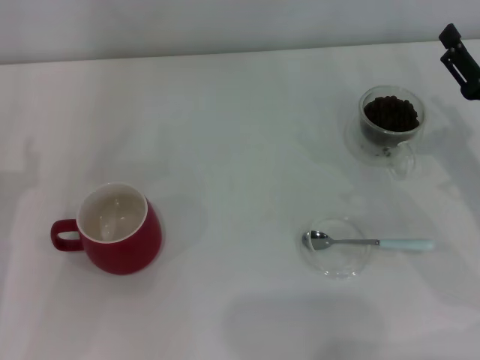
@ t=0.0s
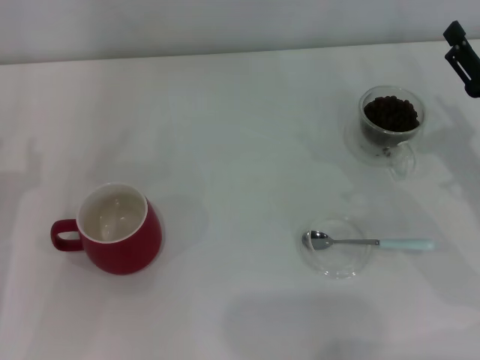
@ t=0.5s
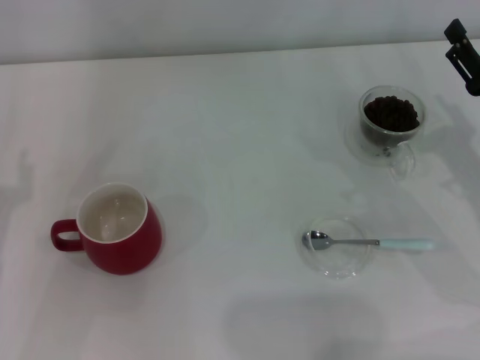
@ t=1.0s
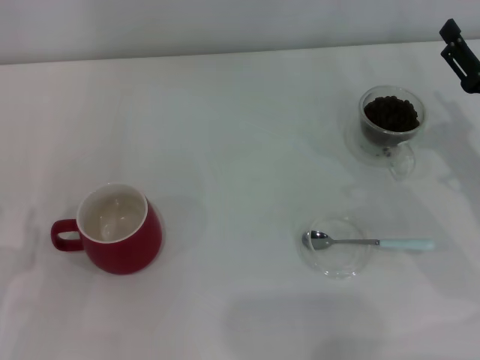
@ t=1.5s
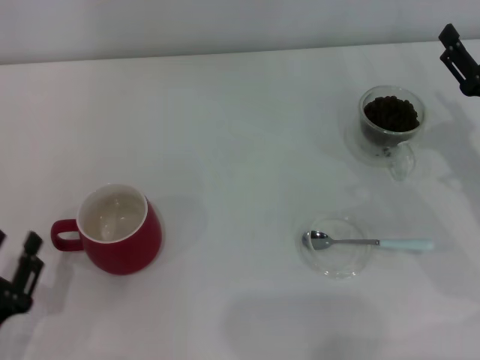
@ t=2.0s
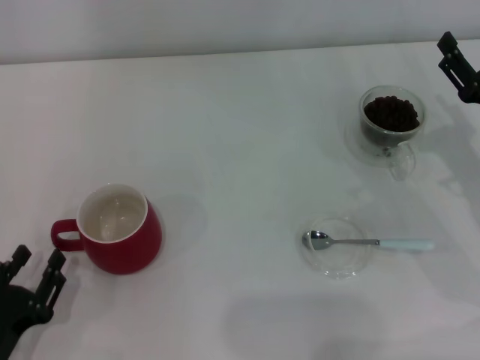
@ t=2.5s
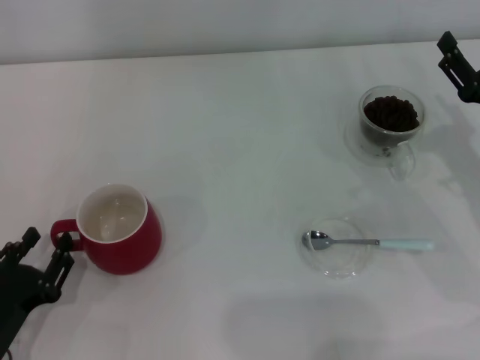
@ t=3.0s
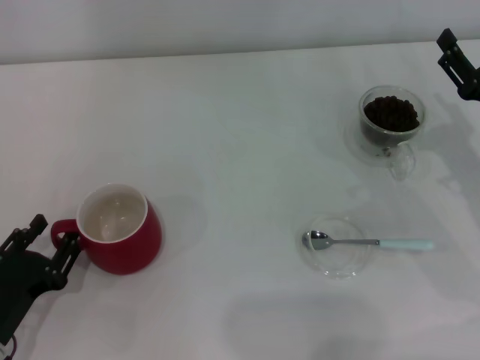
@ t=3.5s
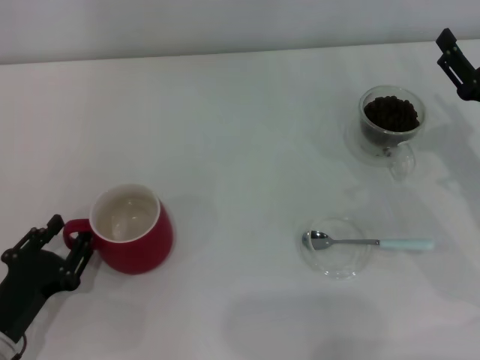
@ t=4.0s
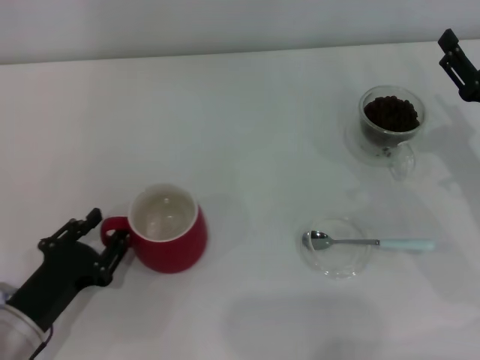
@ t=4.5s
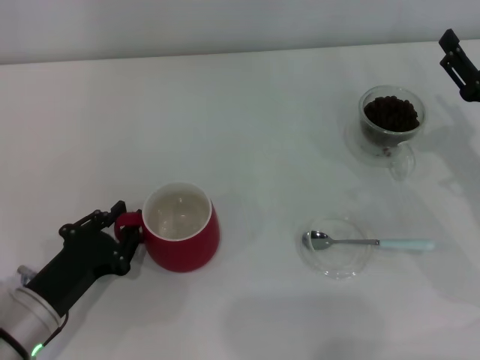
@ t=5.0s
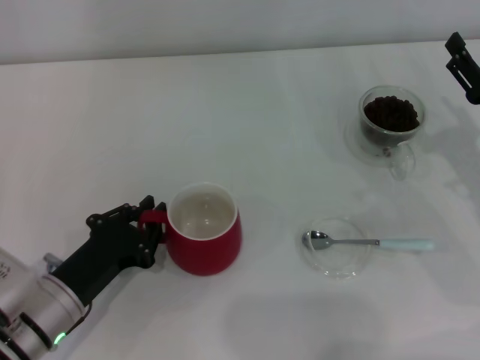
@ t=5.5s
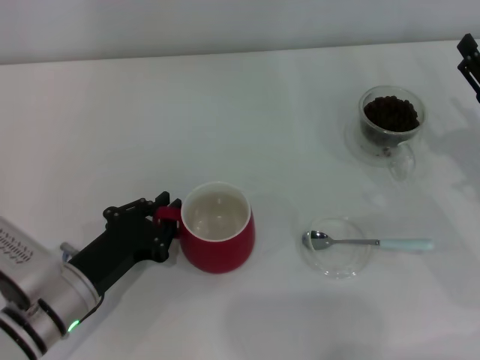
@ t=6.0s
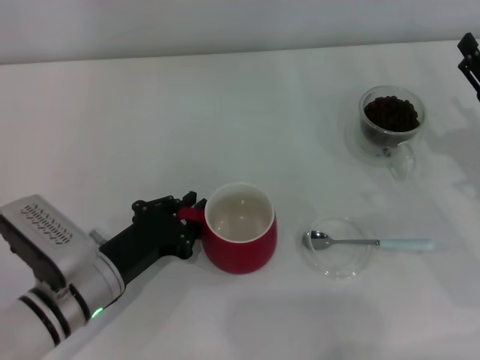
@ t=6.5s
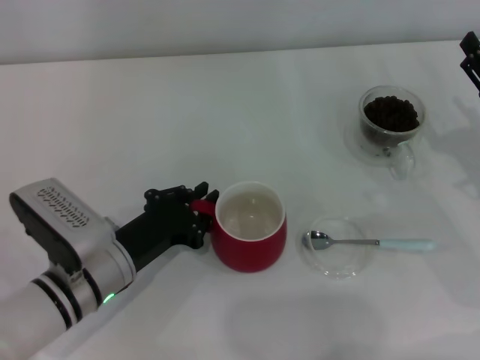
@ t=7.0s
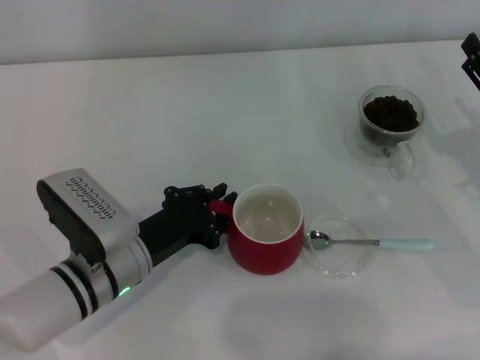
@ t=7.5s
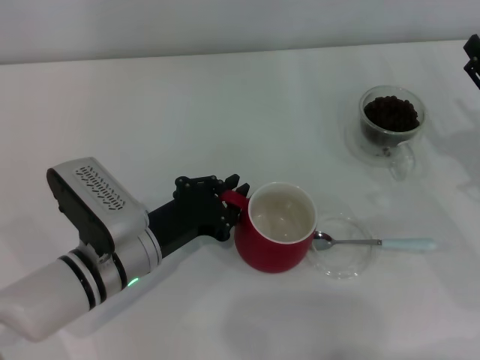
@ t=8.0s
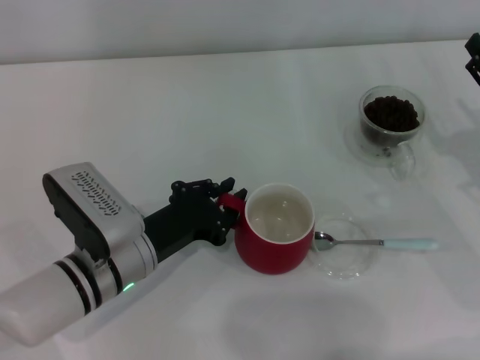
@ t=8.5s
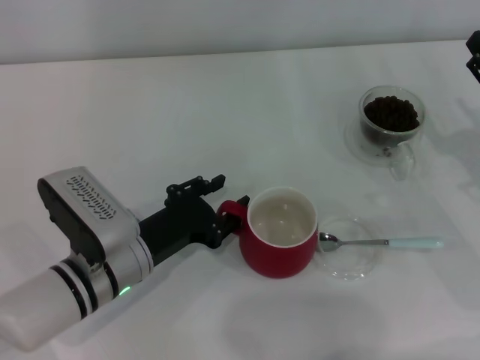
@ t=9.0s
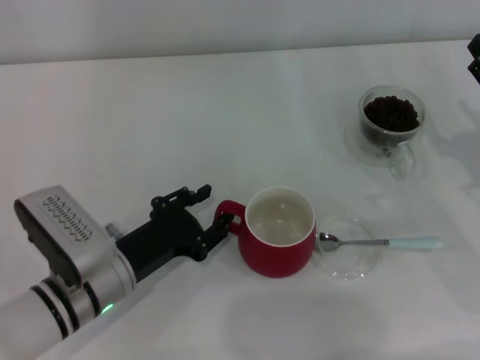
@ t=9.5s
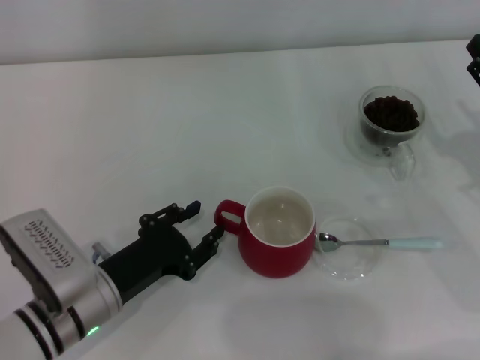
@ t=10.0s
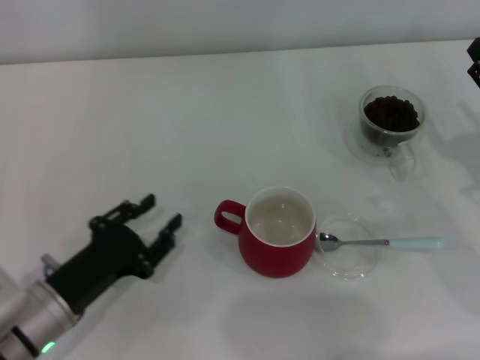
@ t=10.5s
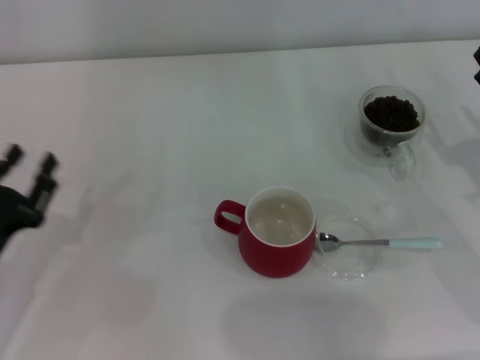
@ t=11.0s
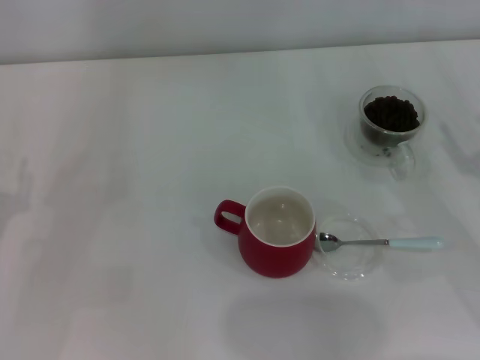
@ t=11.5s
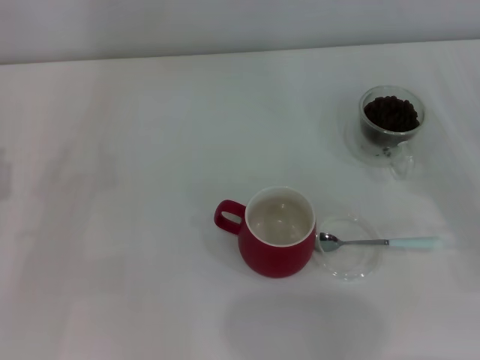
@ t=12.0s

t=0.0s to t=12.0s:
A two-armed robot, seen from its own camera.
Task of the whole recording: Use a blue spoon to take out the coffee beans from the glass and pour them into the red cup.
Step, t=0.0s to t=10.0s: Move the cup to the center of view with the left gripper.
t=0.0s to t=2.0s: The left gripper travels backward and downward by about 15 cm.
t=2.0s to t=4.0s: The left gripper ends up some 5 cm from where it was.
t=4.0s to t=6.0s: The left gripper heads to the right and forward, covering some 10 cm, and closes its fingers.
t=6.0s to t=8.0s: The left gripper travels to the right by roughly 5 cm.
t=8.0s to t=10.0s: The left gripper ends up about 5 cm from where it was, and opens up.
t=10.0s to t=12.0s: The left gripper shifts roughly 15 cm to the left. Meanwhile the right gripper heads backward, covering some 5 cm.

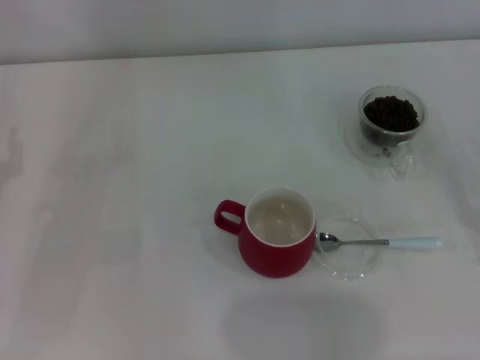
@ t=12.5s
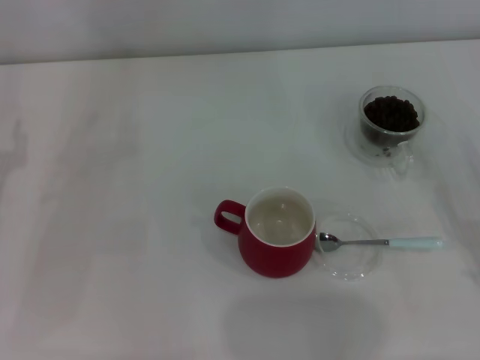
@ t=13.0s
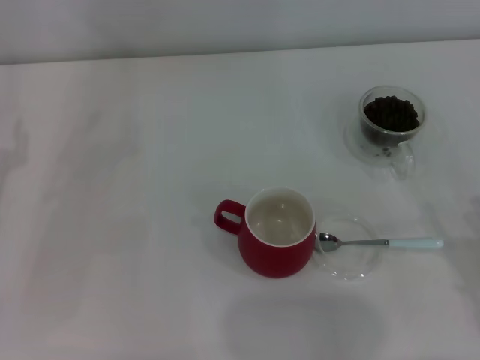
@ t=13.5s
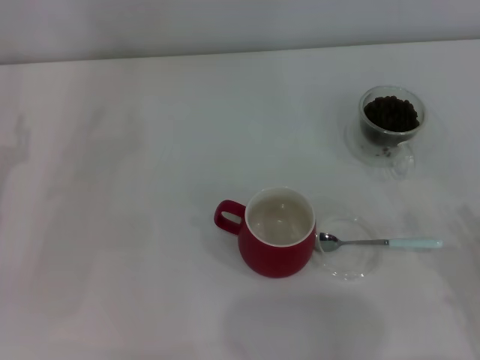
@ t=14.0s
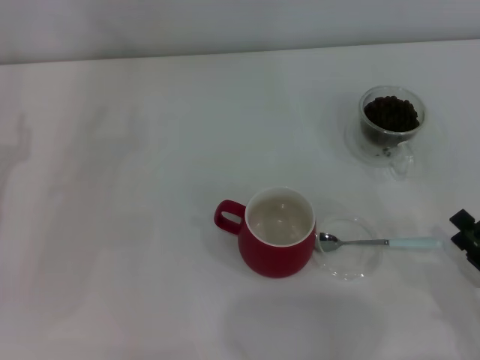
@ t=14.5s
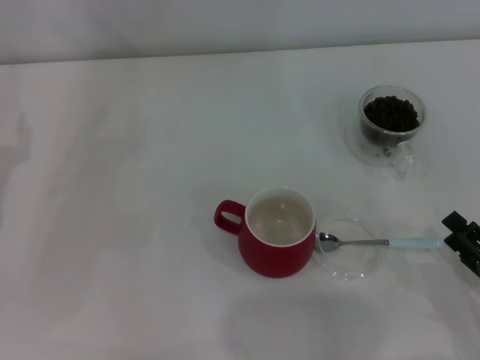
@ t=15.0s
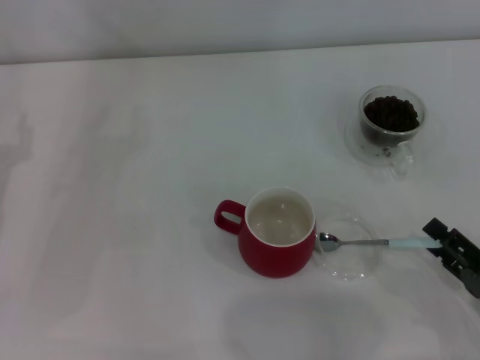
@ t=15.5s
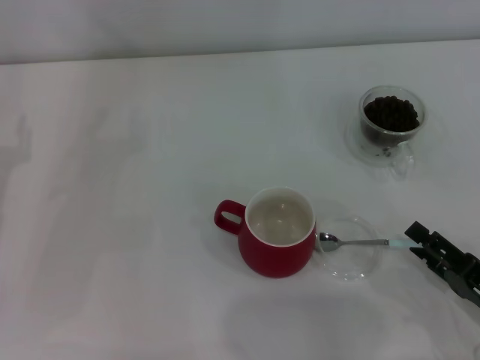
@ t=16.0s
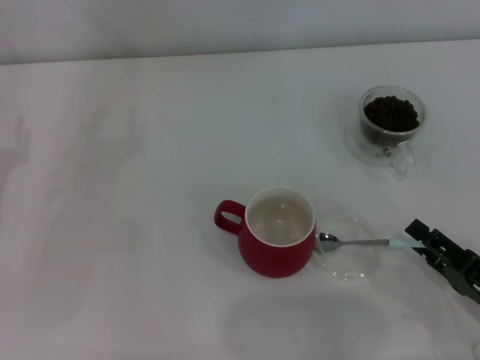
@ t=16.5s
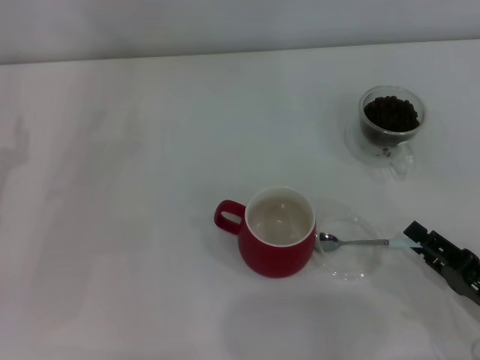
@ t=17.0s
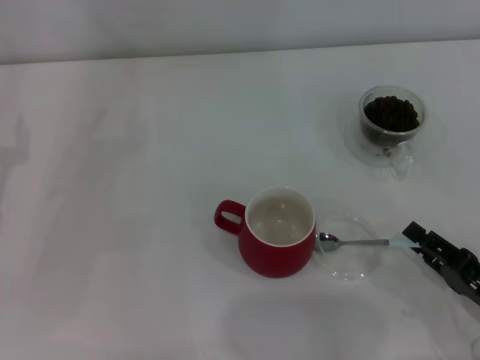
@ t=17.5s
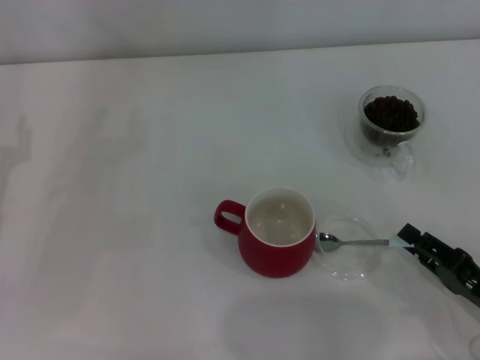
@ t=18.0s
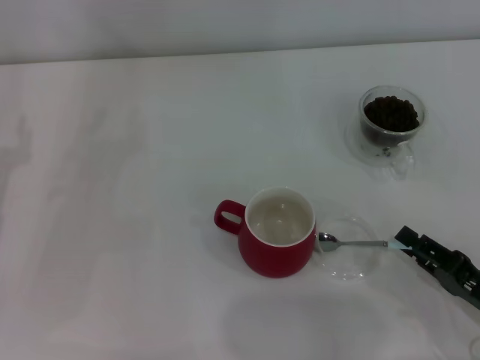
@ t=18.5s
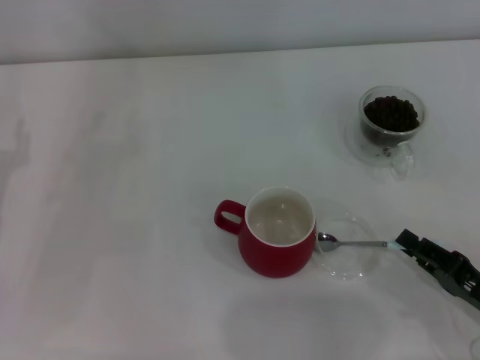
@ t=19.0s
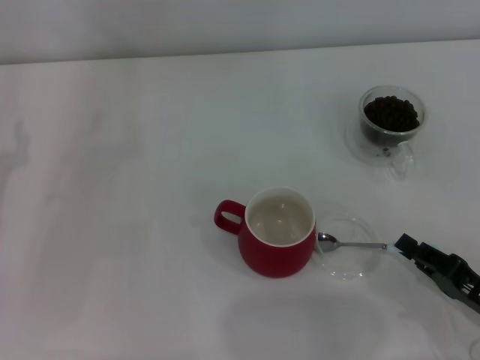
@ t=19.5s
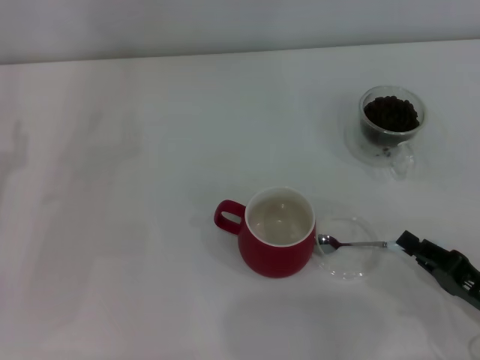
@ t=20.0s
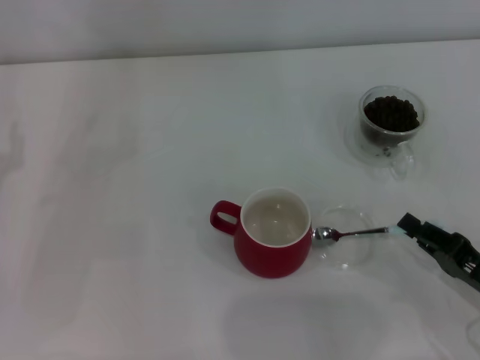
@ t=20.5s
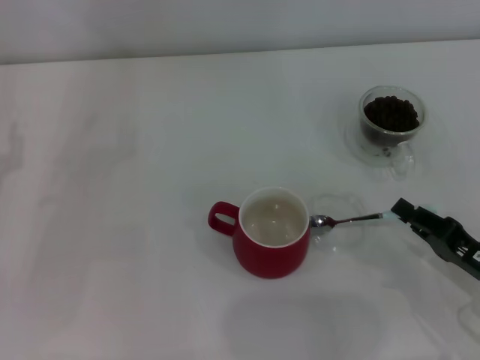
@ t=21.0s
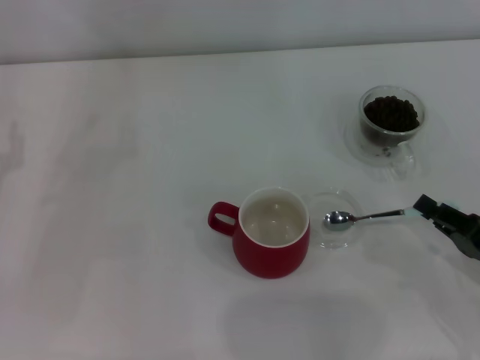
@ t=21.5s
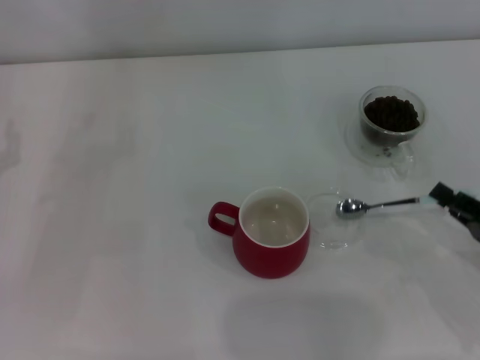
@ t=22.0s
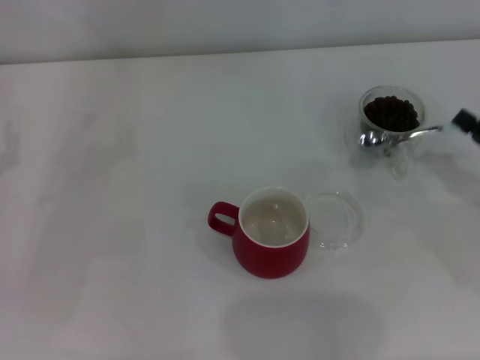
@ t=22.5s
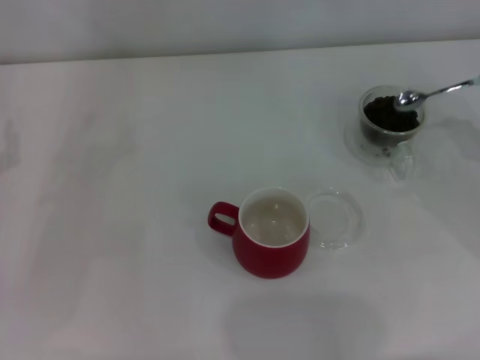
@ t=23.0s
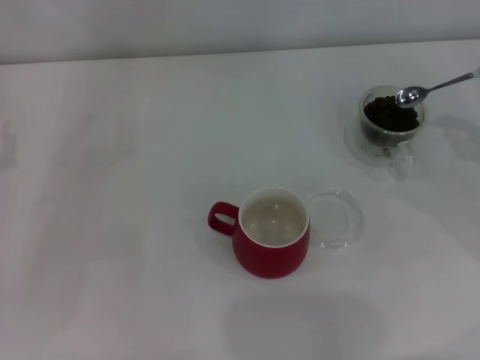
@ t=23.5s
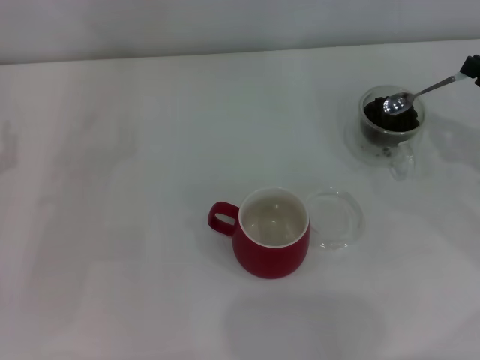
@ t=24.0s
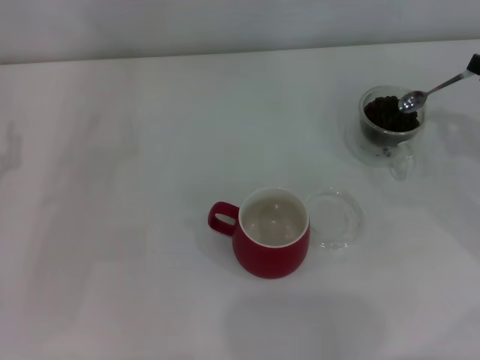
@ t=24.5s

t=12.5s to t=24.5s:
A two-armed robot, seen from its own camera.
Task of the whole recording: Use a blue spoon to take out the coffee beans from the glass and pour them into the red cup.
Step, t=12.5s to t=22.0s: Pick up the spoon with the right gripper.
t=12.5s to t=14.5s: The right gripper shifts about 5 cm to the left.
t=14.5s to t=16.5s: The grippers move only a little.
t=16.5s to t=18.5s: The right gripper closes up.
t=18.5s to t=20.5s: The right gripper closes its fingers.
t=20.5s to t=22.5s: The right gripper goes roughly 10 cm forward, to the right and upward.
t=22.5s to t=24.5s: The right gripper moves forward, approximately 5 cm.

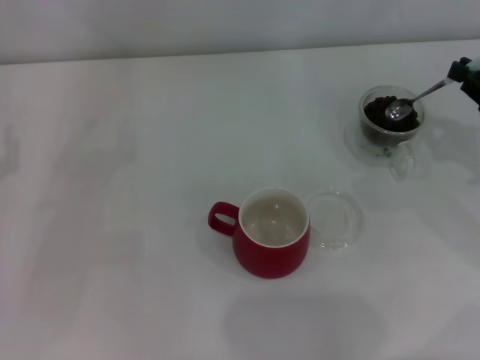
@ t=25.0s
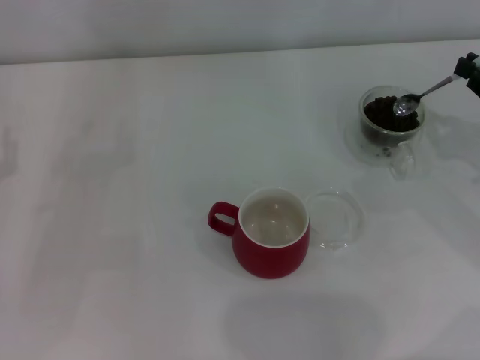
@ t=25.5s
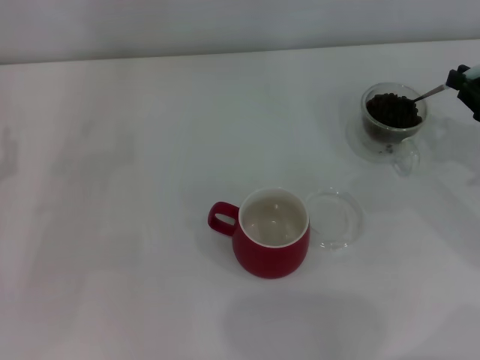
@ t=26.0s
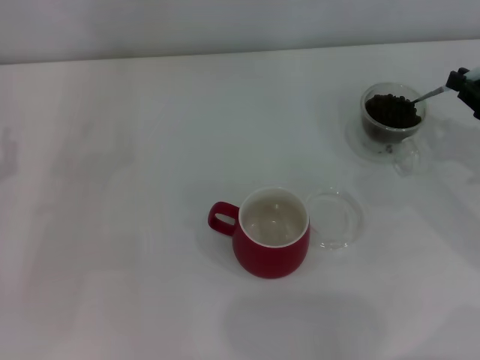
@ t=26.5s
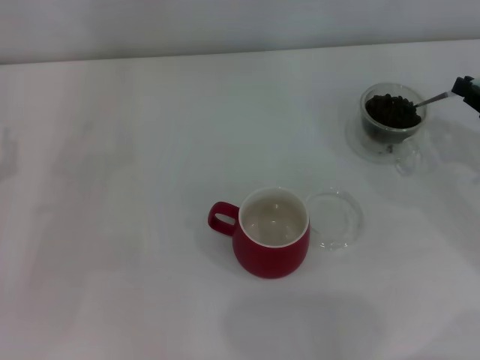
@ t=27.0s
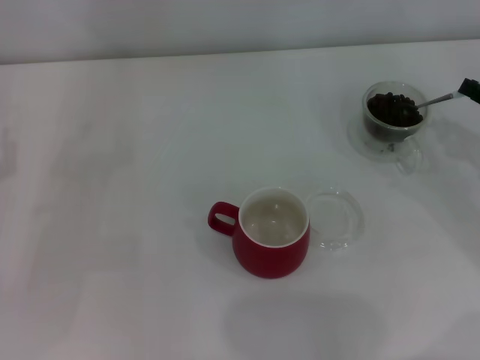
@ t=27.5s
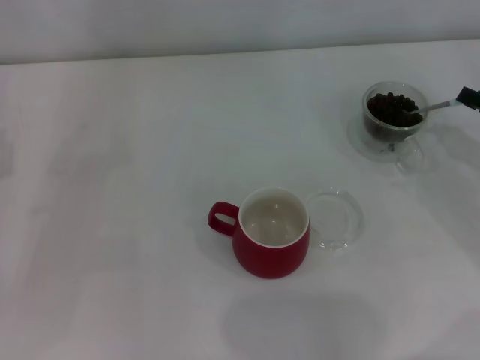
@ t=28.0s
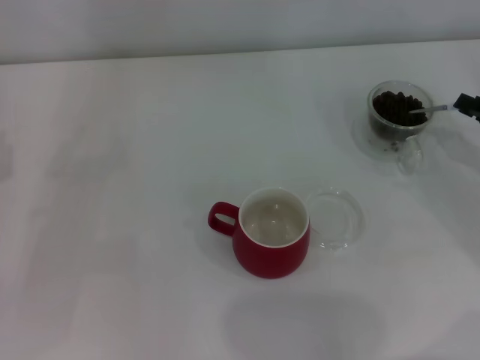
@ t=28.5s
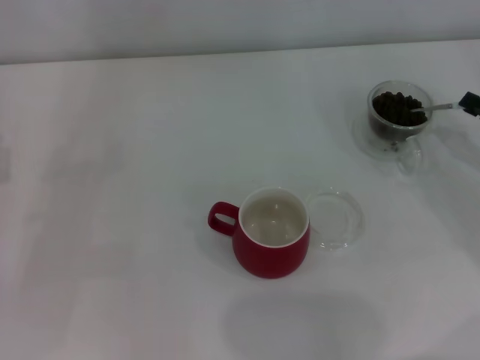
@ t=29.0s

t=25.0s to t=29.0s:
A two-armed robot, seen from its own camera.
Task of the whole recording: Use a blue spoon to take out the coffee beans from the glass and pour them into the red cup.
t=25.0s to t=27.0s: The grippers move only a little.
